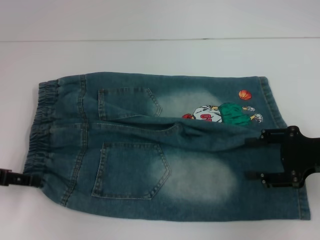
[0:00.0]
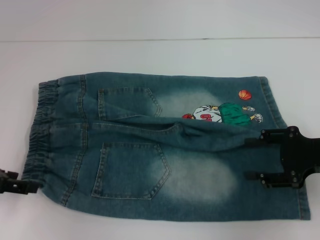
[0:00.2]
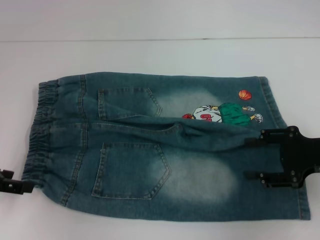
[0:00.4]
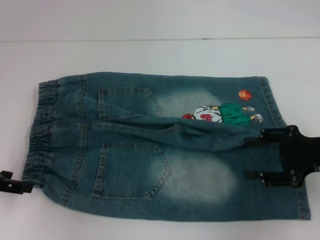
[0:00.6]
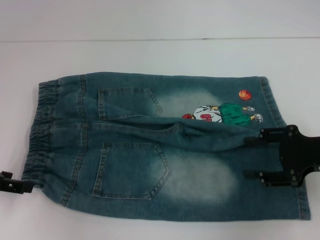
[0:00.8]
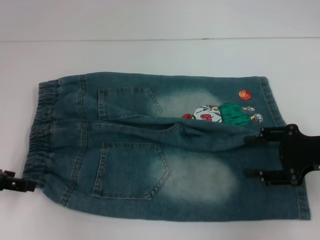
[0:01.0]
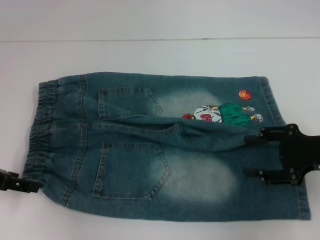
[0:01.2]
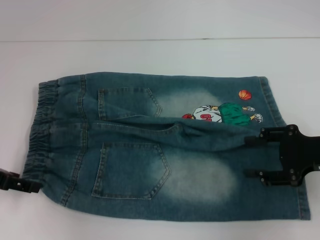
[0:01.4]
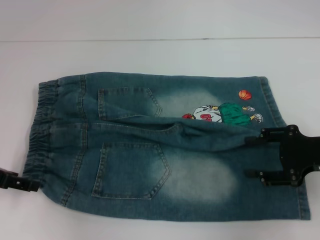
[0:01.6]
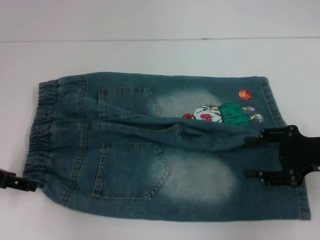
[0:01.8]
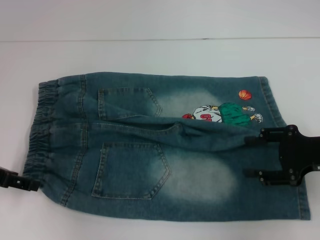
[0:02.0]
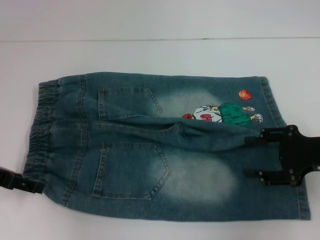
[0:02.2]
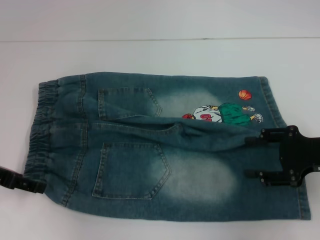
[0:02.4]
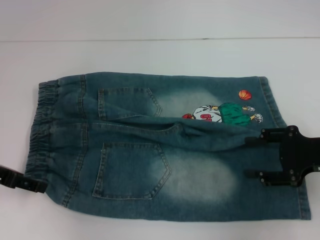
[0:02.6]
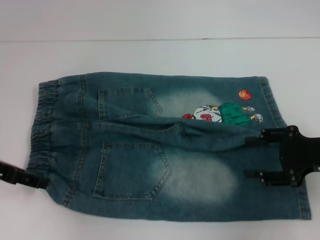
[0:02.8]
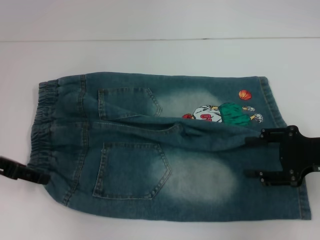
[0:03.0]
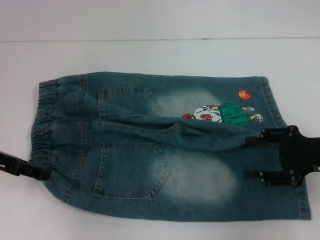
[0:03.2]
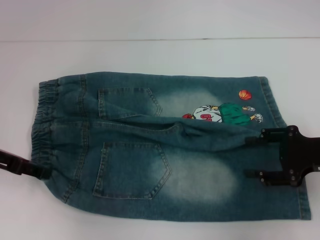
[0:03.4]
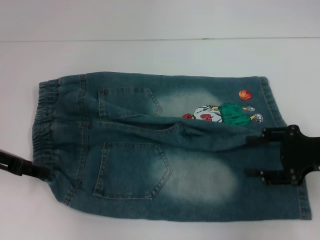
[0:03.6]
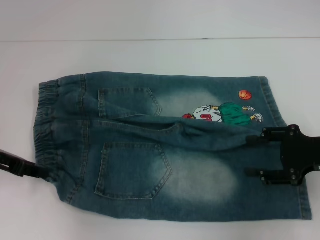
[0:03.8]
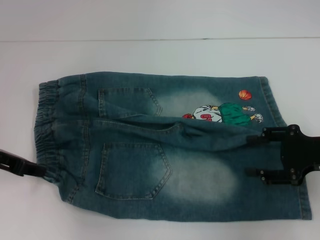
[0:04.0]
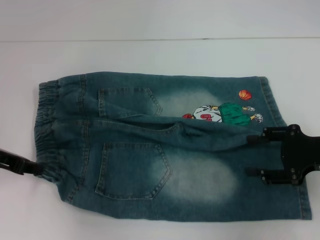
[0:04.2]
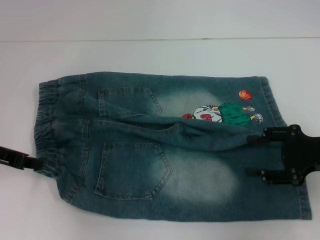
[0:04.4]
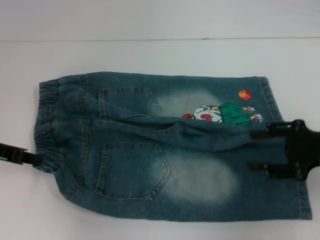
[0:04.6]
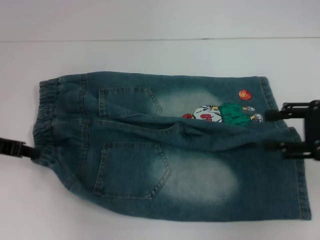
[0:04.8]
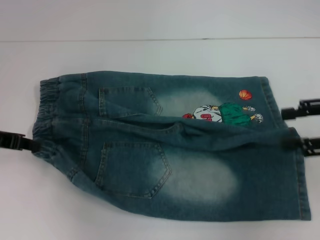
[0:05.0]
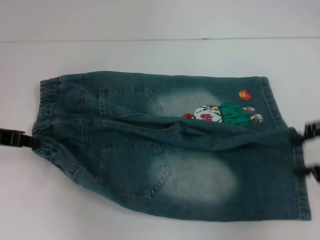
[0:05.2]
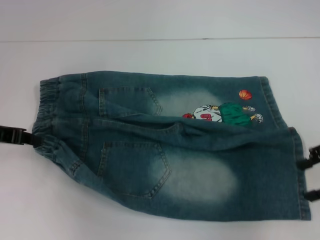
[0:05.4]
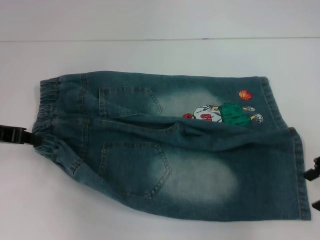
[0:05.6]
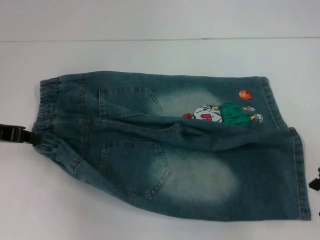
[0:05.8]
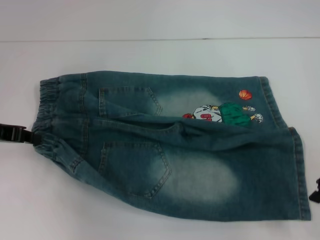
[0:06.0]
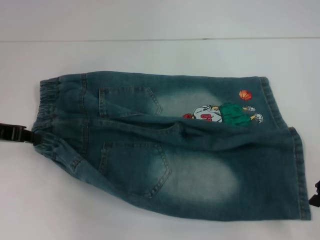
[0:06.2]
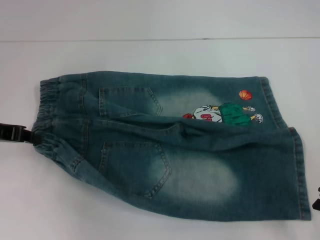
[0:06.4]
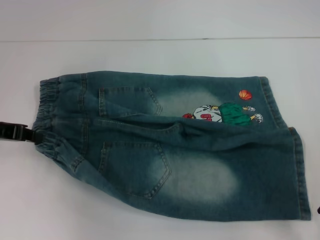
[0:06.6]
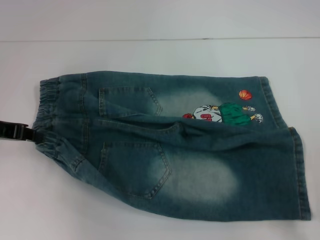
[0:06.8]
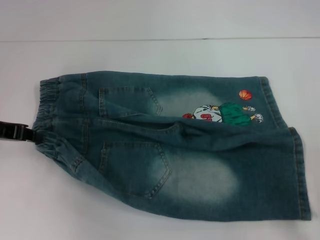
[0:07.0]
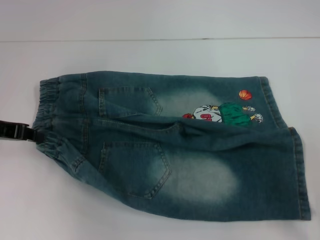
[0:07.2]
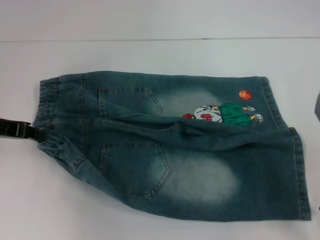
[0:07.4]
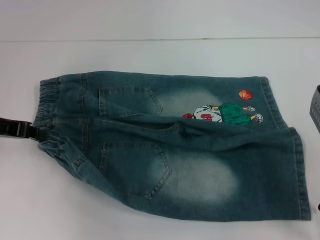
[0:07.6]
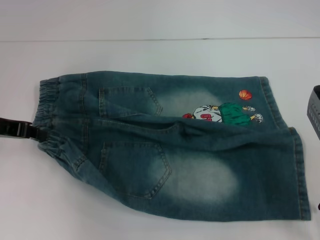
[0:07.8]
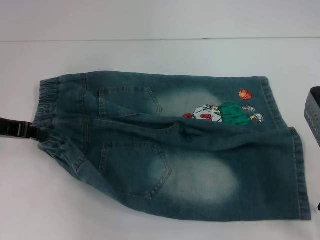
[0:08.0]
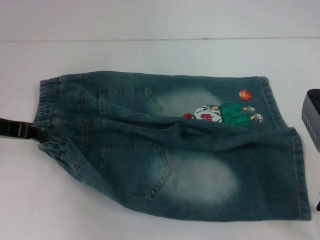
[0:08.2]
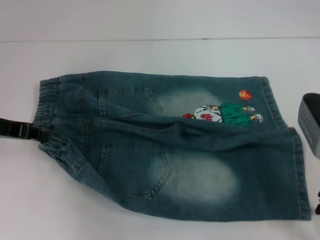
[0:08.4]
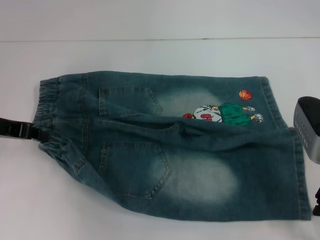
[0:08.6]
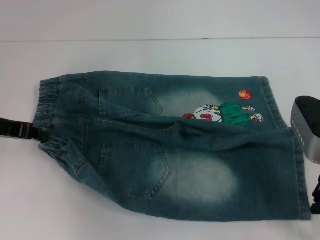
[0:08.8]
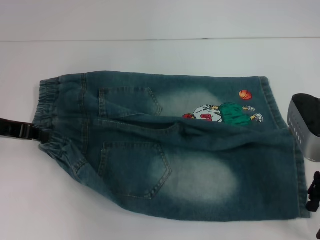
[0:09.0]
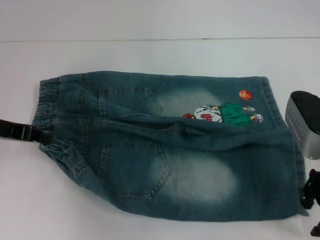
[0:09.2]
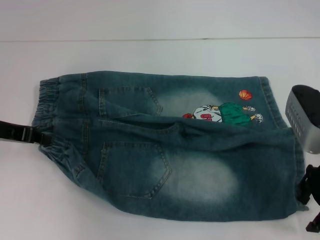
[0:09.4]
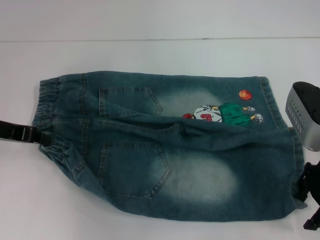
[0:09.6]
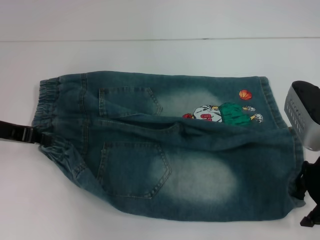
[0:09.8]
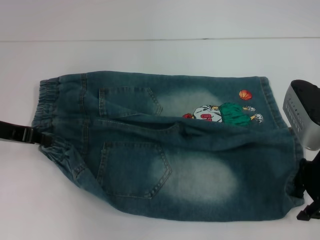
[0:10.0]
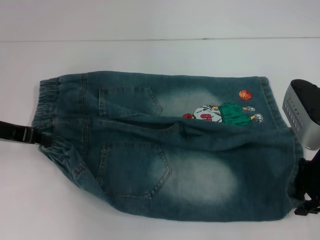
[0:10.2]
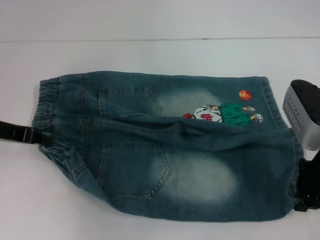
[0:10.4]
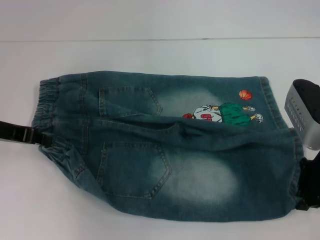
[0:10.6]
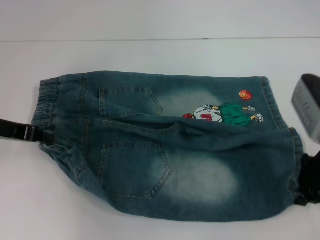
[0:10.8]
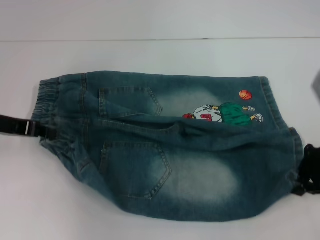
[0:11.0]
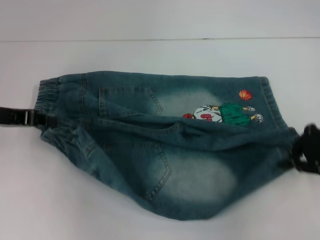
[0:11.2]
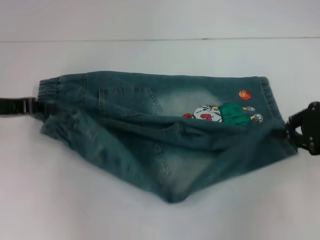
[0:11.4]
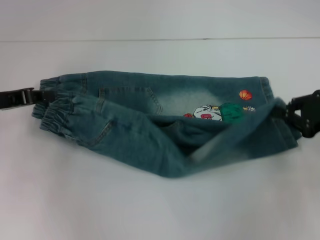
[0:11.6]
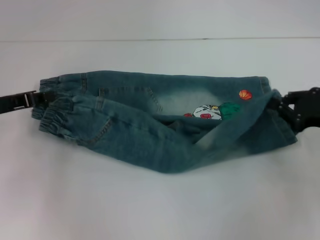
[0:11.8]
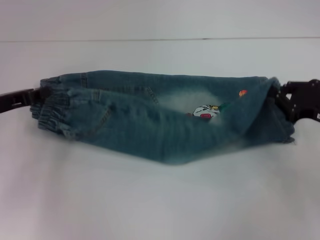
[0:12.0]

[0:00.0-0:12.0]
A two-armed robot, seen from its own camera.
Step, 0:02.8 to 0:10.4: Grab the lower right pant leg with your right hand.
0:01.6 to 0:03.0: The grippers stay close to where they were, moving slightly.
0:03.0 to 0:04.4: The left gripper closes up.
0:04.4 to 0:06.0: The right gripper is displaced upward by roughly 5 cm.
0:06.0 to 0:07.6: The grippers move only a little.
0:07.6 to 0:09.0: The grippers make only small movements.
0:09.0 to 0:10.4: The right gripper closes its fingers.
0:10.4 to 0:12.0: The right gripper travels to the right and downward by some 10 cm.

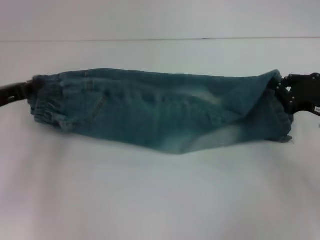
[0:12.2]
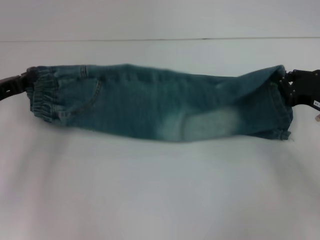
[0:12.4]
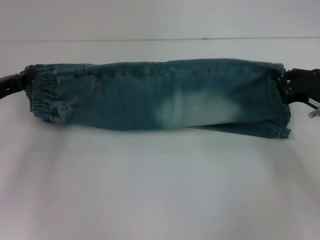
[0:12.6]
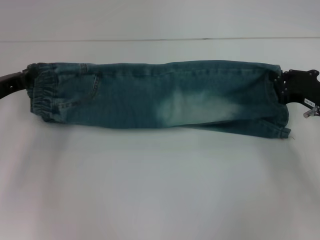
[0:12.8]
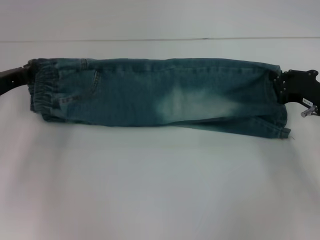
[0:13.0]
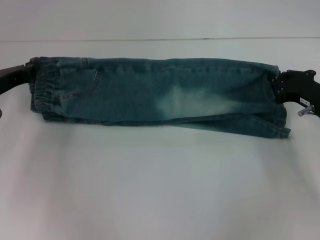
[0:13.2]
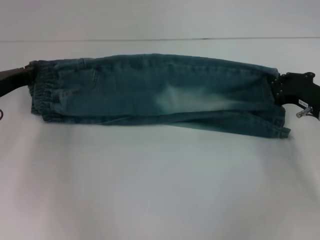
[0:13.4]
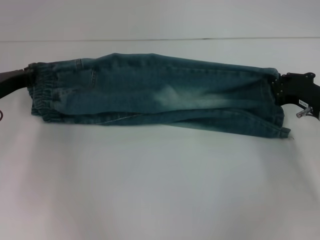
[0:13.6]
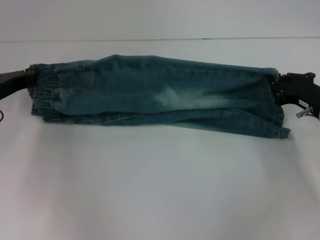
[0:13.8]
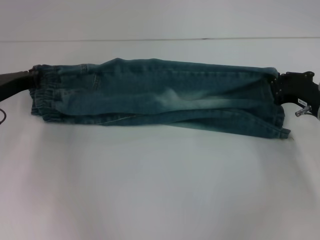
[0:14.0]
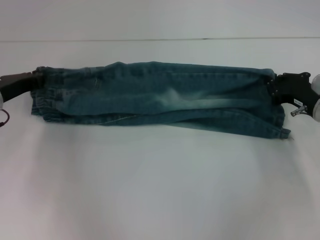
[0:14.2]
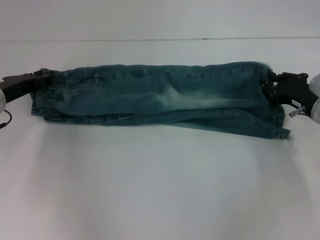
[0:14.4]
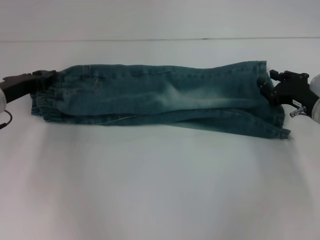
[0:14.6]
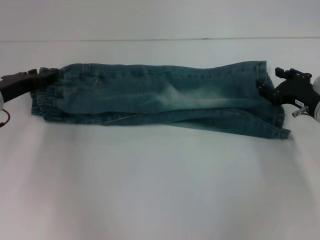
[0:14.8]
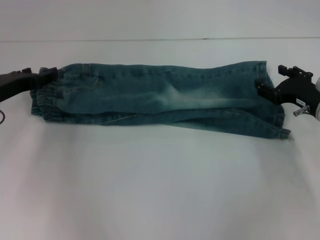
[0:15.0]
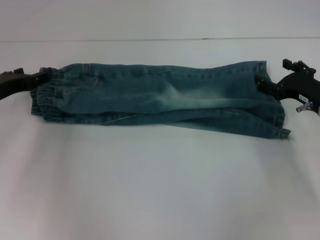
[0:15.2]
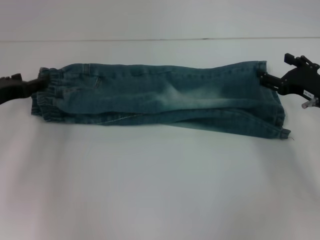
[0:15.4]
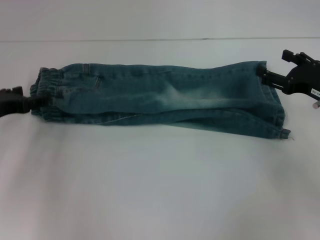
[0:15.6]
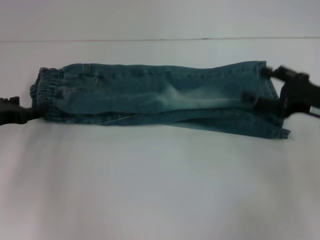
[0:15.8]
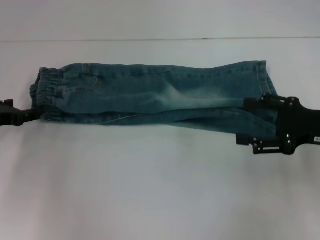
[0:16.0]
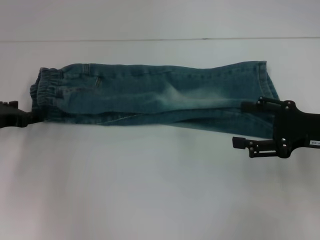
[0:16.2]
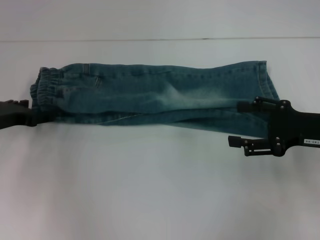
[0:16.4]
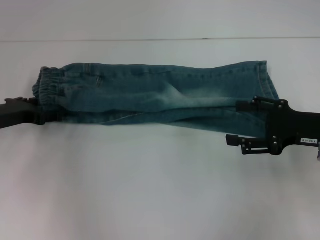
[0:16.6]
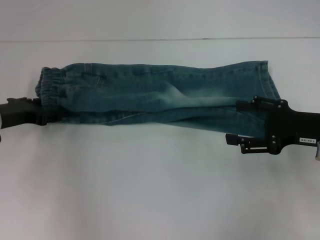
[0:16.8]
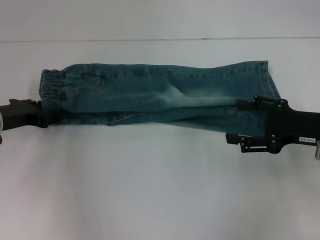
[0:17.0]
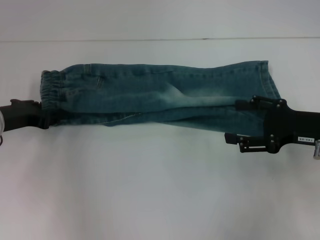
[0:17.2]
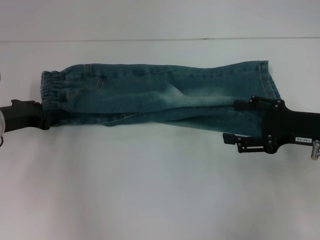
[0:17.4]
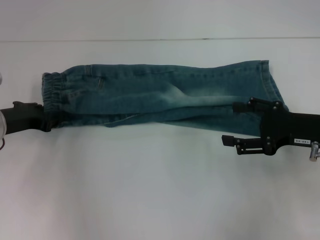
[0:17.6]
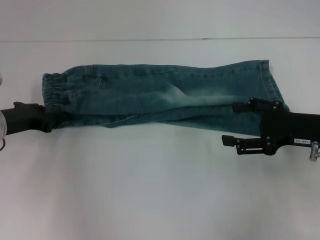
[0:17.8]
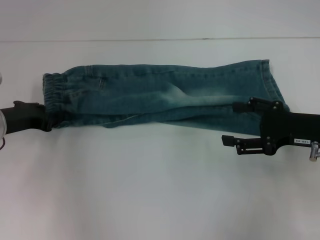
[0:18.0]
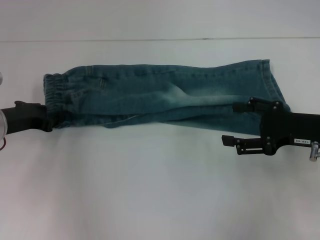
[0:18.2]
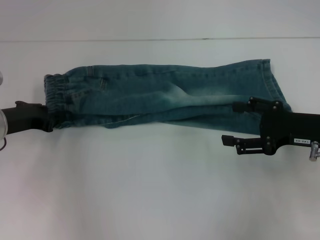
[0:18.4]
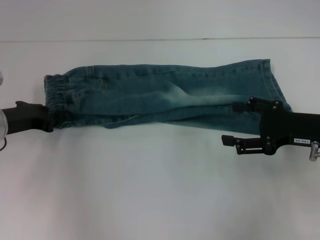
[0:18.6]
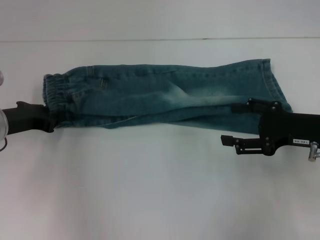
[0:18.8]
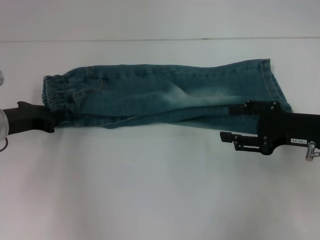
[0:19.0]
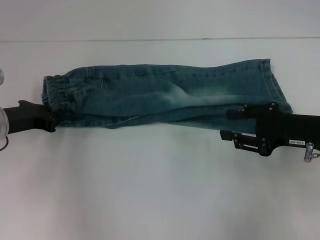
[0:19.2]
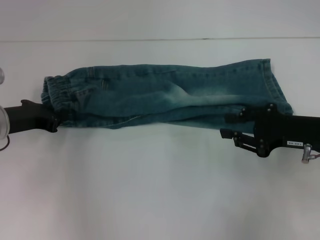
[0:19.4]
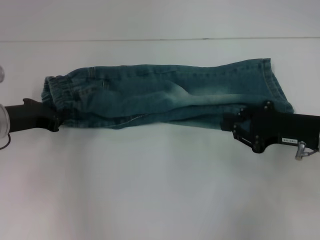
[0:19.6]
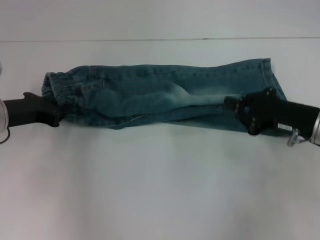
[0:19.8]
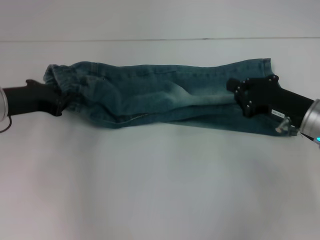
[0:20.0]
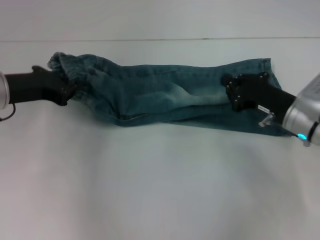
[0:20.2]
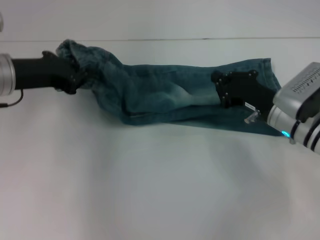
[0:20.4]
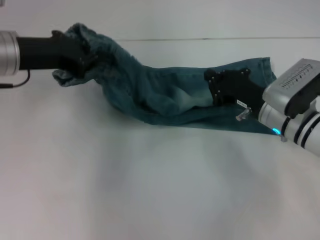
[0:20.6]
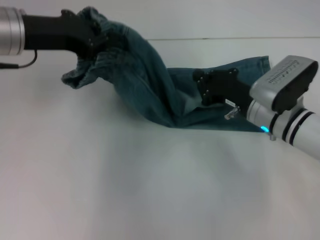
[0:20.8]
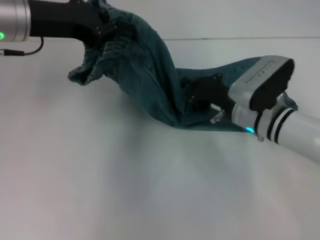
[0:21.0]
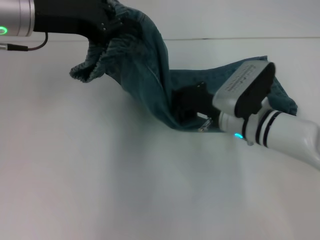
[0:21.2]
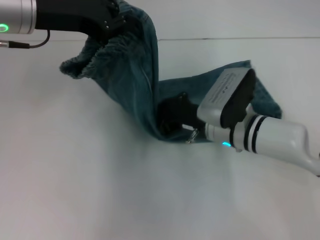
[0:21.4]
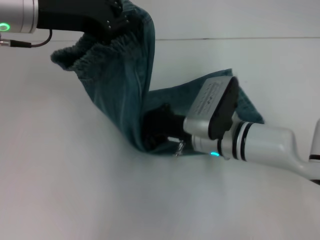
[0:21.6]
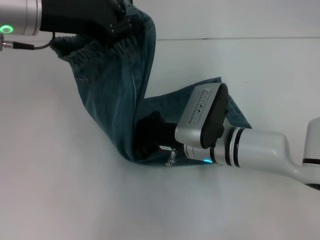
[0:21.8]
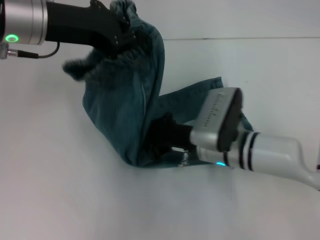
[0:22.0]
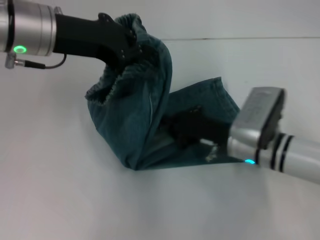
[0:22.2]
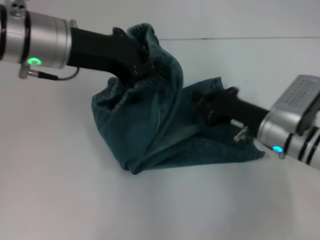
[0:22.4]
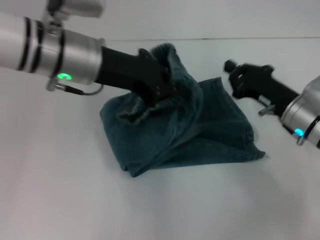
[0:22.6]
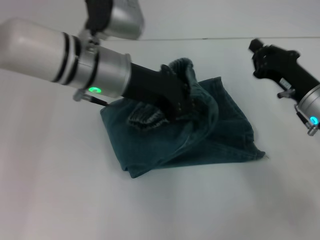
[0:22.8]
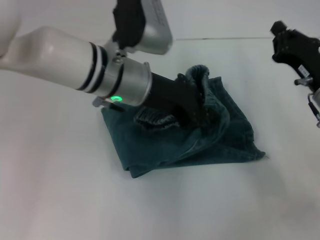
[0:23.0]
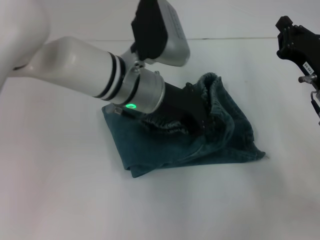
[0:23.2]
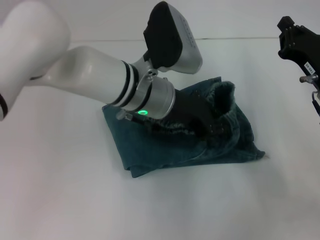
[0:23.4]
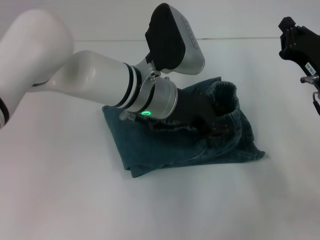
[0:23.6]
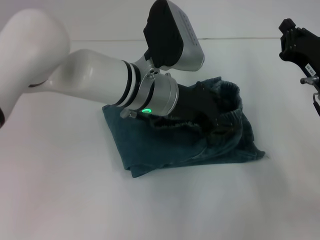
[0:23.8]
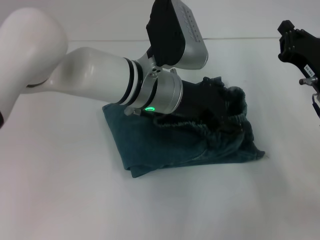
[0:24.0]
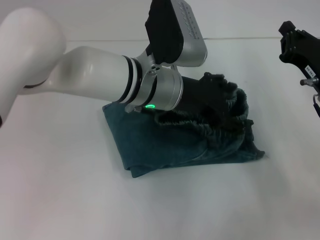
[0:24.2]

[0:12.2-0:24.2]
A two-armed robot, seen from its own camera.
Step, 0:12.2 to 0:15.0: Fold upward with your right hand.
Step, 0:15.4 to 0:17.0: Hold the waistband with your left hand.
Step, 0:17.2 to 0:22.0: Press the middle of the pants with your right hand.
Step, 0:22.2 to 0:24.2: Fold to the right with your left hand.
0:12.2 to 0:13.8: The left gripper ends up some 5 cm from where it was.
0:13.8 to 0:15.2: The right gripper opens, while the left gripper opens.
0:15.2 to 0:16.6: The right gripper travels backward by approximately 5 cm.
0:16.6 to 0:18.2: The left gripper closes its fingers.
0:18.2 to 0:19.8: The right gripper closes up.
0:19.8 to 0:21.2: The left gripper goes roughly 15 cm upward and to the right, while the right gripper travels to the left by roughly 15 cm.
0:21.2 to 0:22.6: The two grippers go about 10 cm to the right.
0:22.6 to 0:24.2: The left gripper shifts some 10 cm to the right, and opens.
